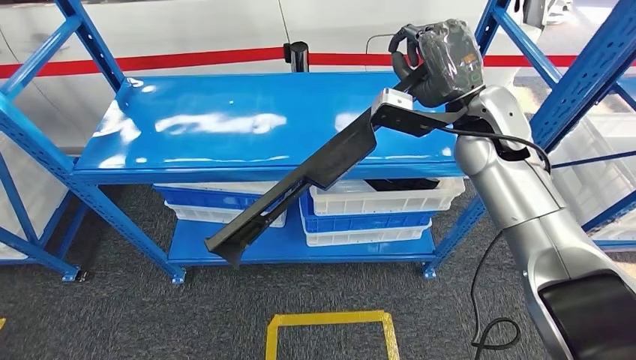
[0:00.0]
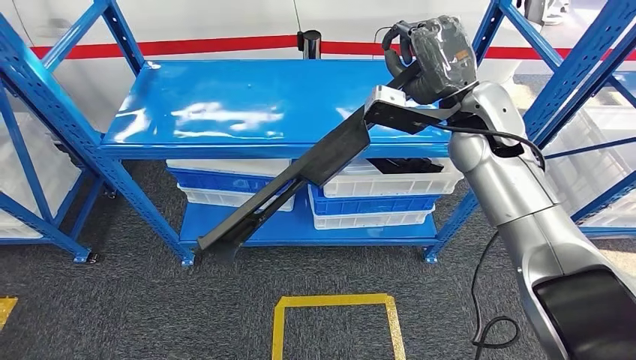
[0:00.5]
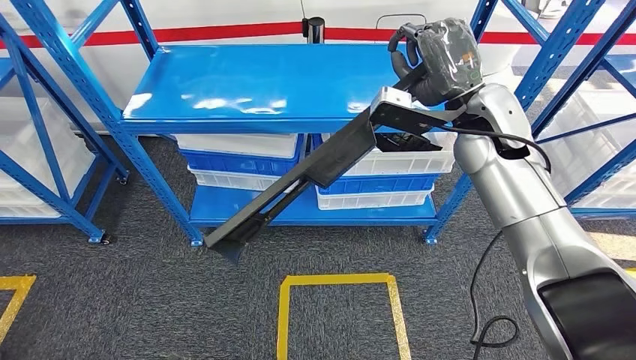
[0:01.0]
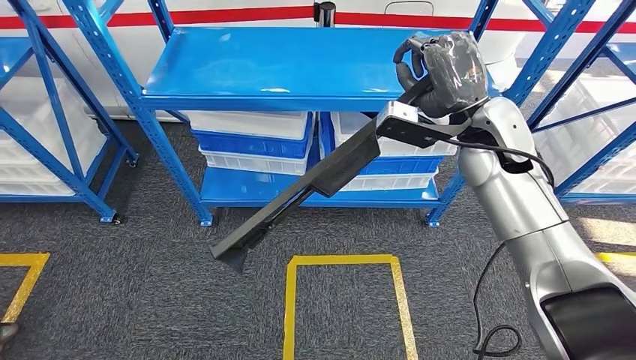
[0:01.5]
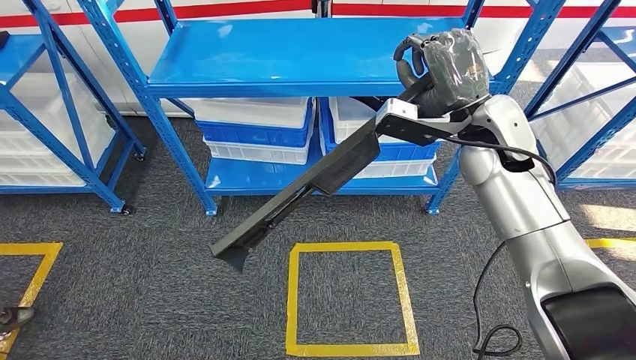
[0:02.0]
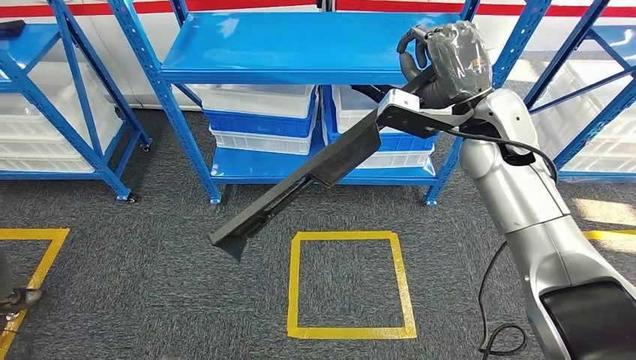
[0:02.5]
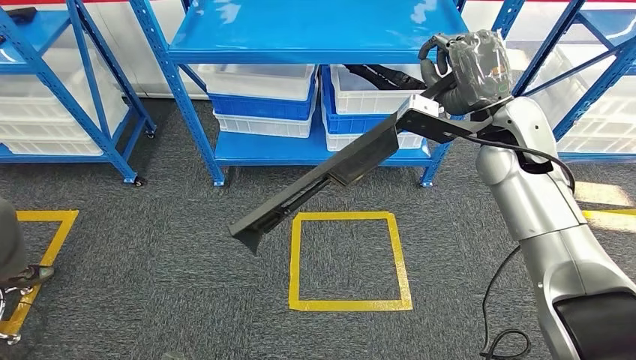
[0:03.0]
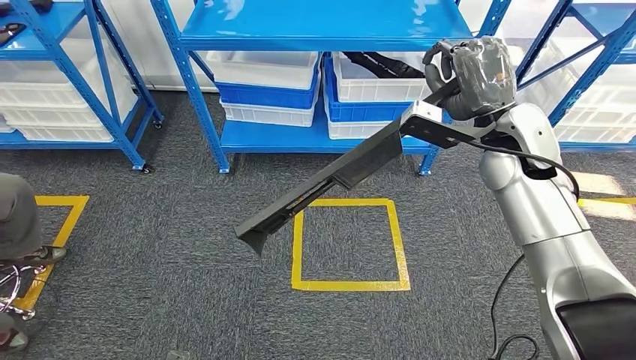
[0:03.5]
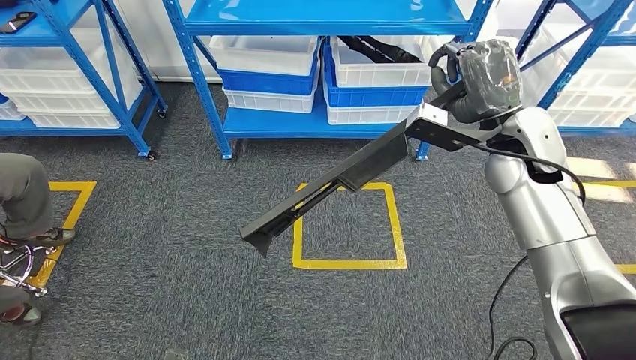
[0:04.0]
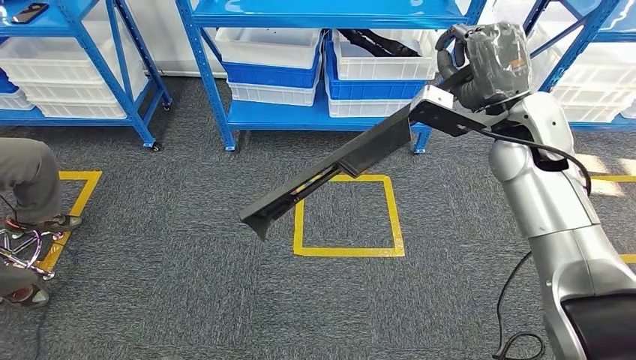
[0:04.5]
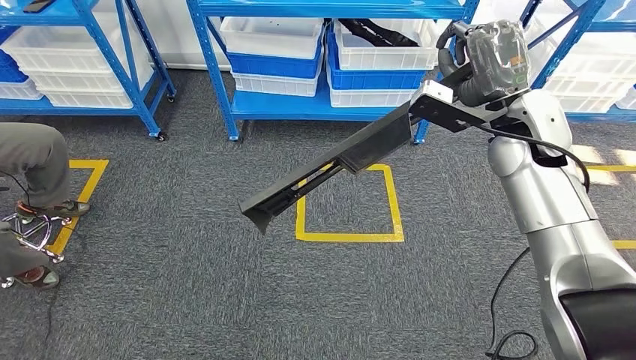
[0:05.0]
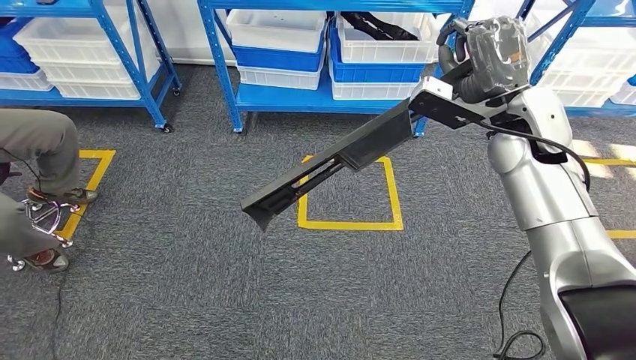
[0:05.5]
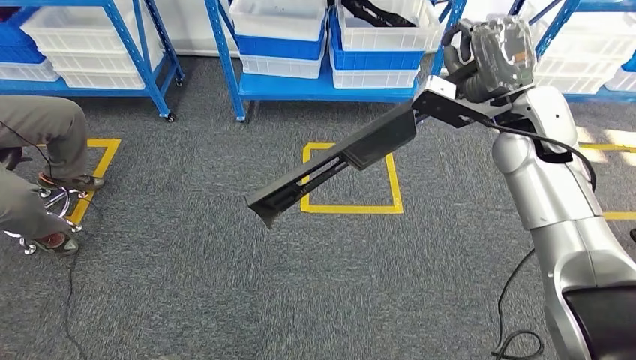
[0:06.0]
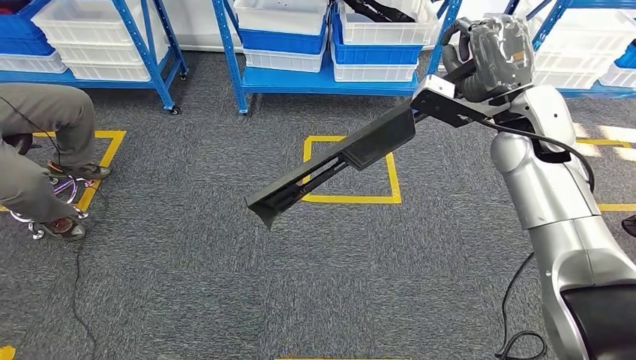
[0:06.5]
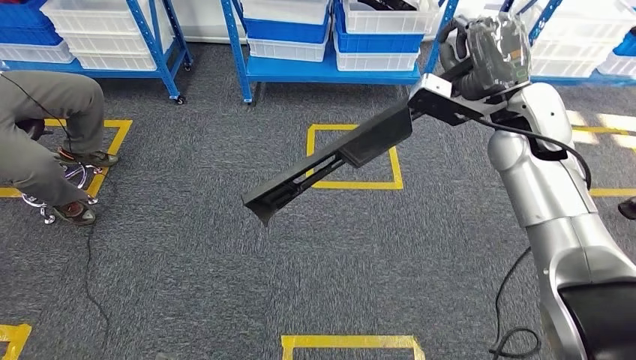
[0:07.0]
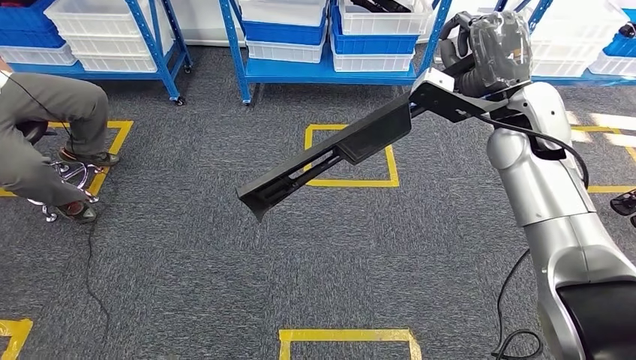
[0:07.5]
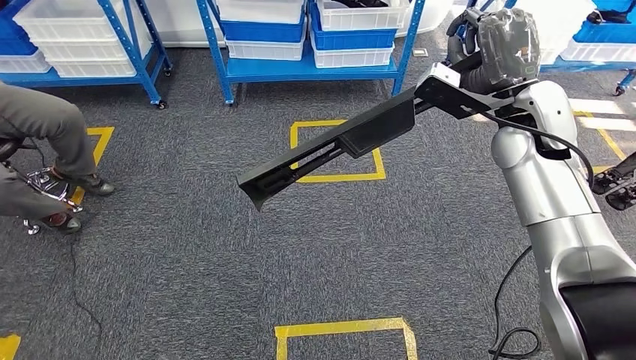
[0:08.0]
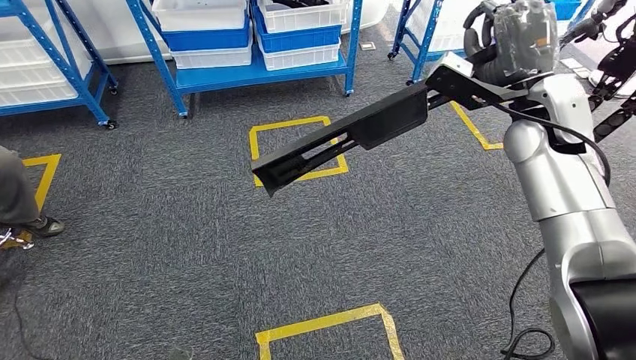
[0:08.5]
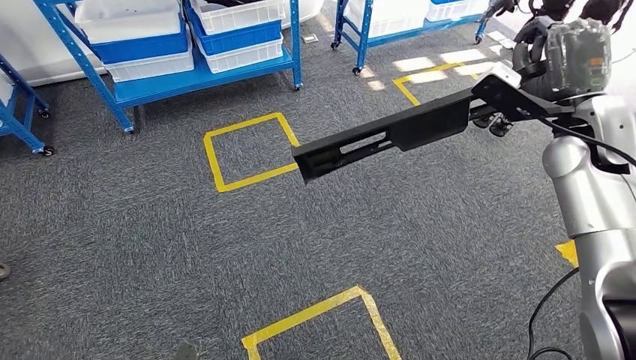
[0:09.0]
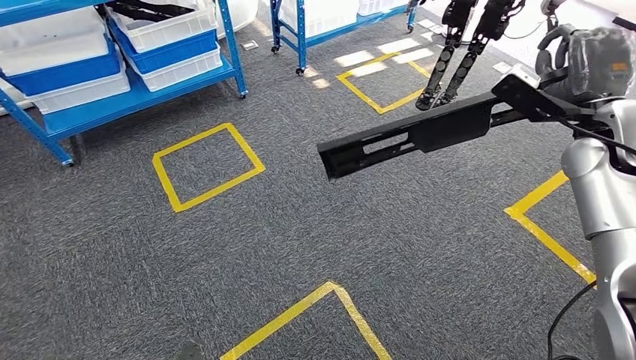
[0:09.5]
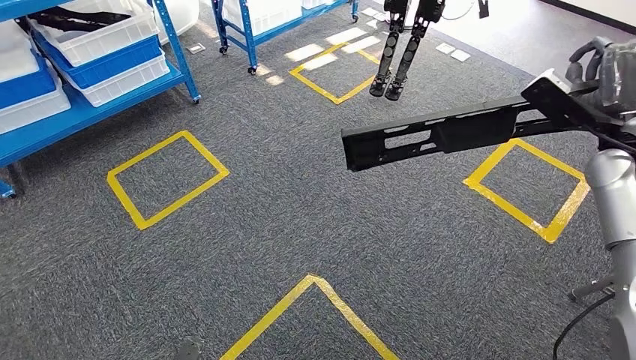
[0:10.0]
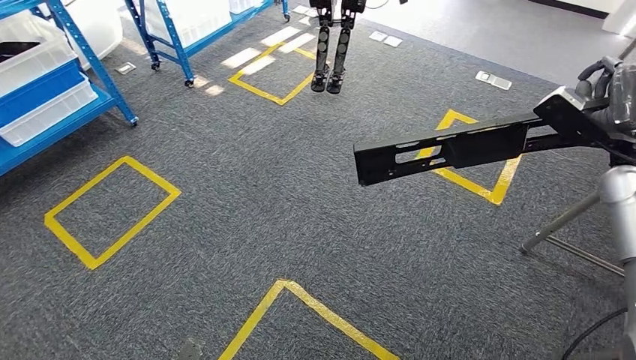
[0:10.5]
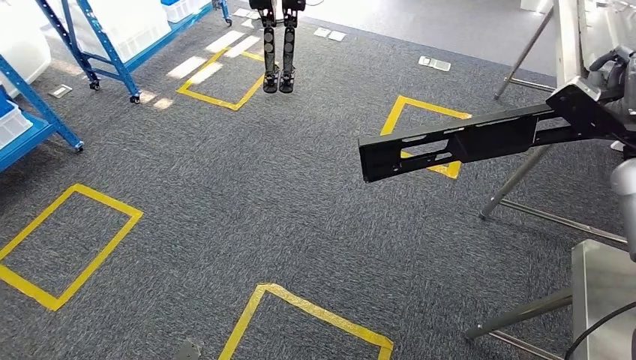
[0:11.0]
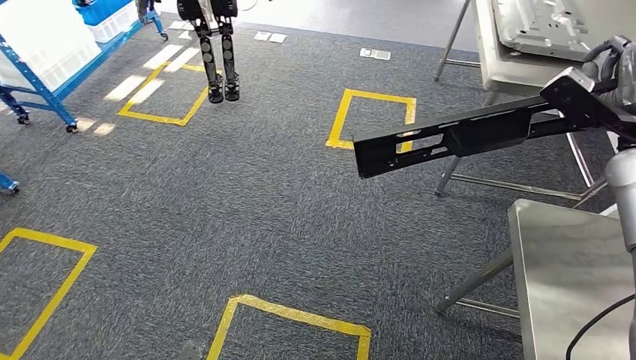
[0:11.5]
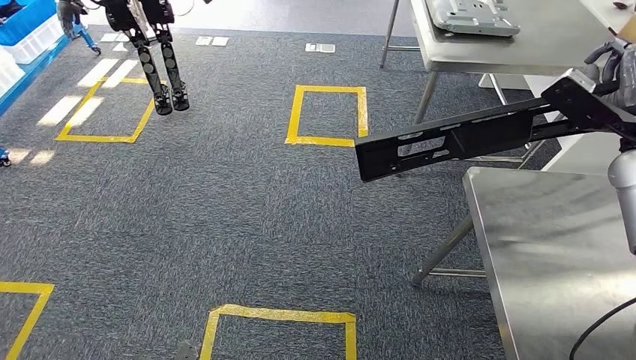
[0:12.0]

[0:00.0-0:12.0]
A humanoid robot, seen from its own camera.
Step, 0:00.0 to 0:11.5: Move the large material to the workbench.

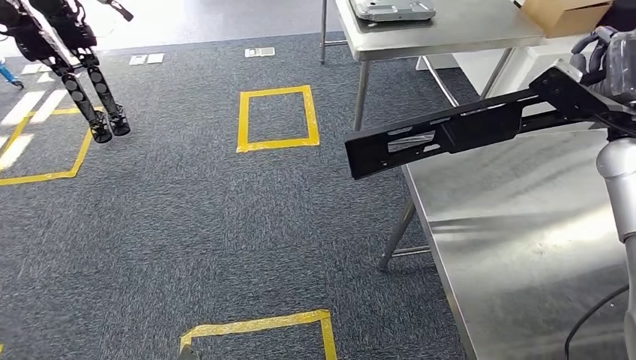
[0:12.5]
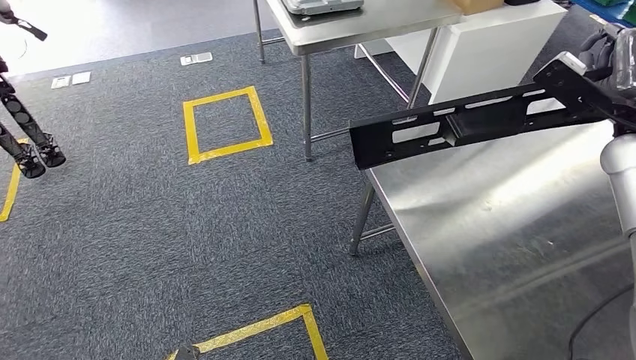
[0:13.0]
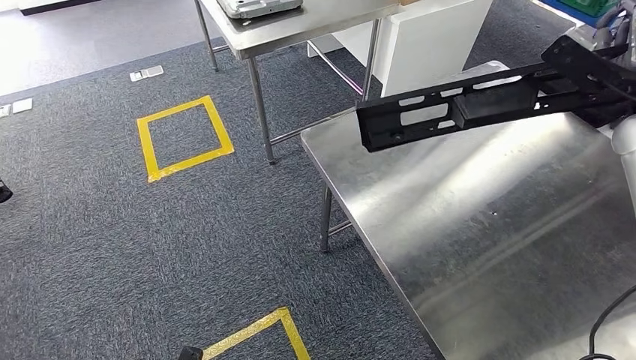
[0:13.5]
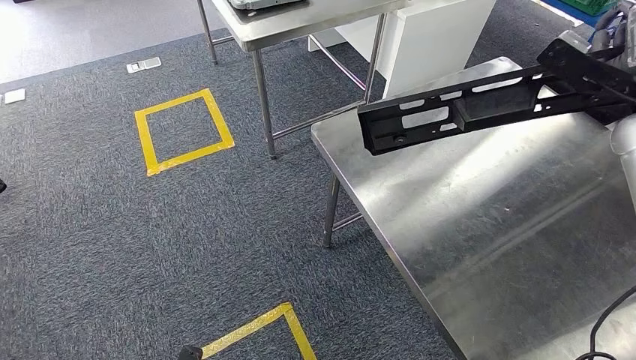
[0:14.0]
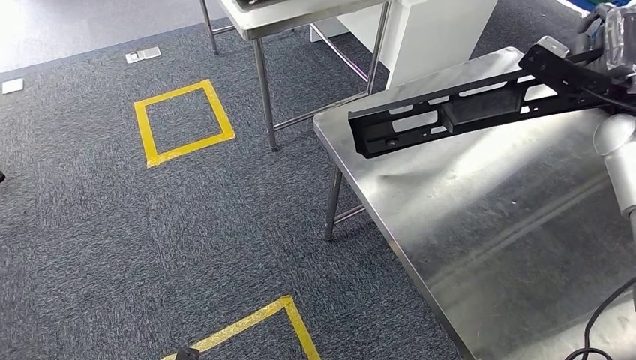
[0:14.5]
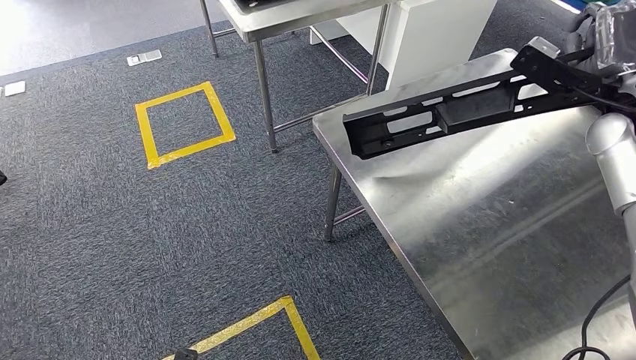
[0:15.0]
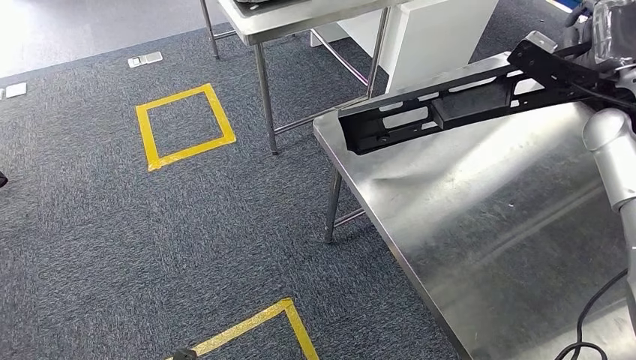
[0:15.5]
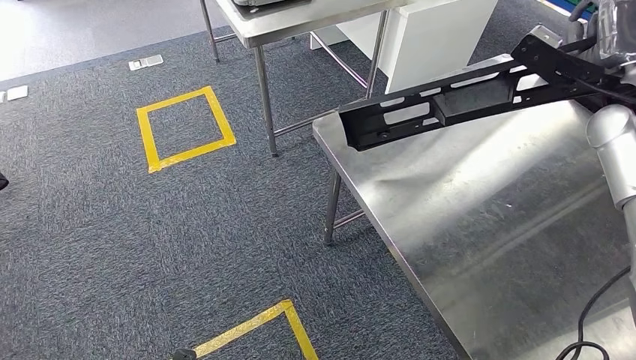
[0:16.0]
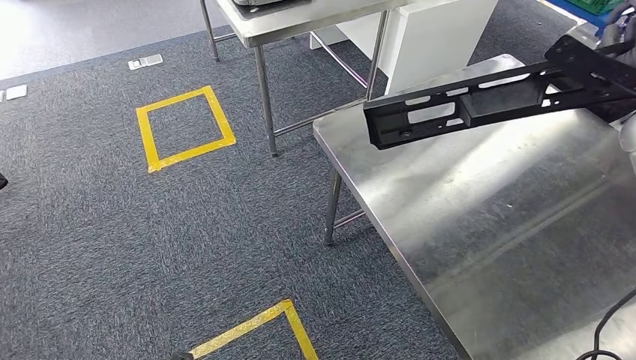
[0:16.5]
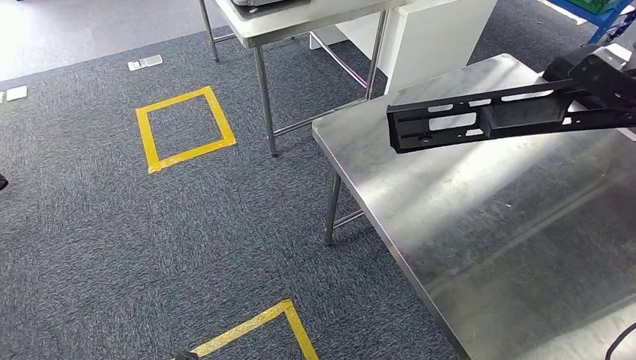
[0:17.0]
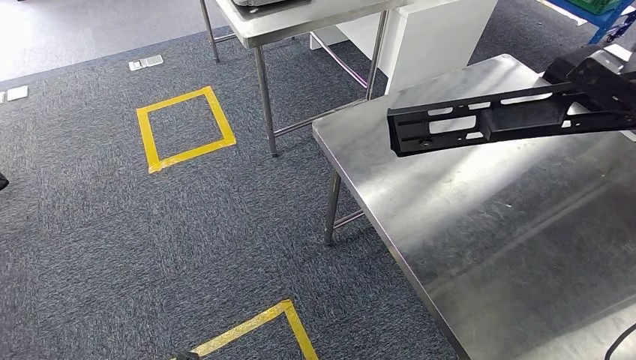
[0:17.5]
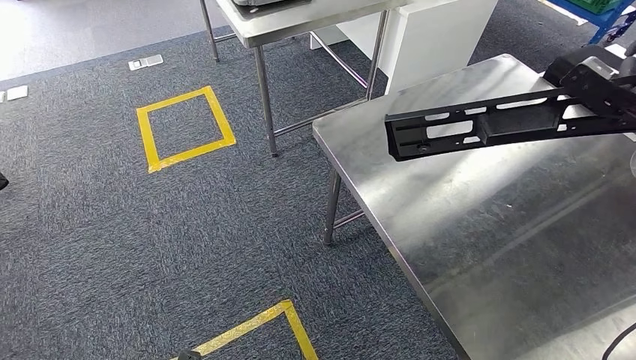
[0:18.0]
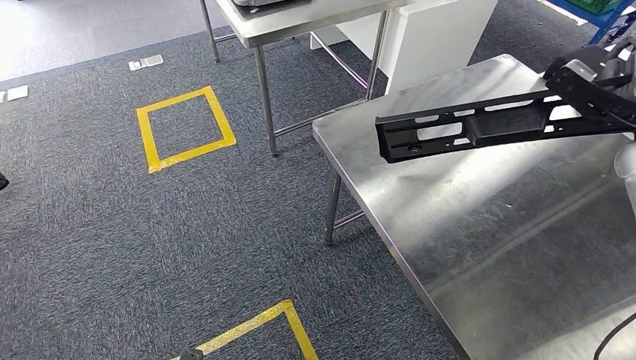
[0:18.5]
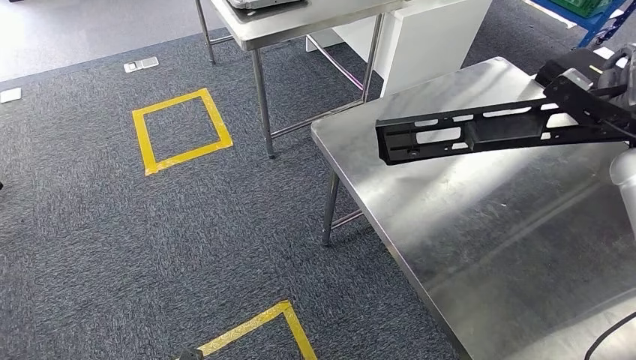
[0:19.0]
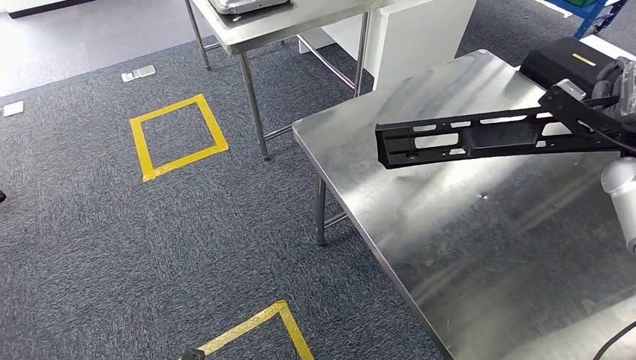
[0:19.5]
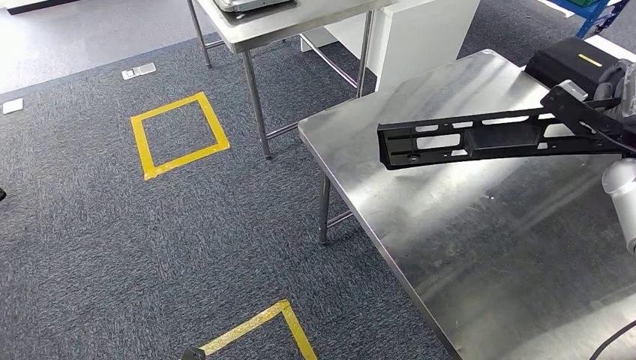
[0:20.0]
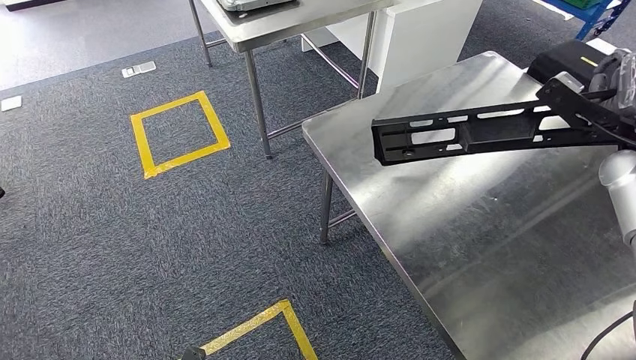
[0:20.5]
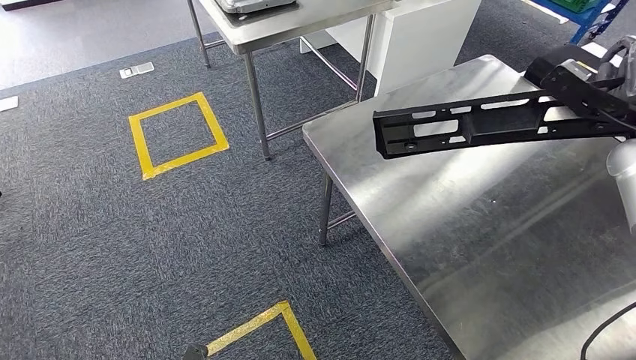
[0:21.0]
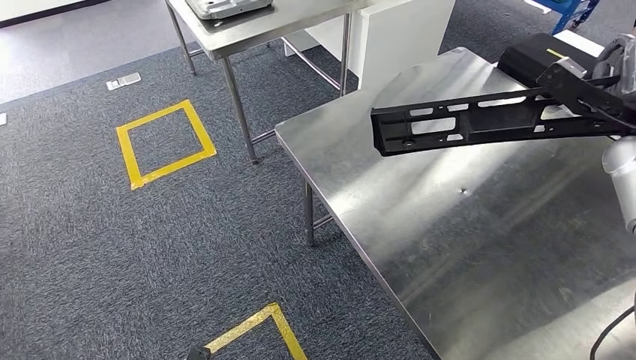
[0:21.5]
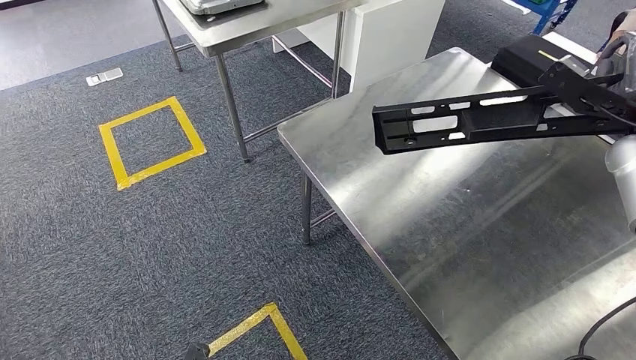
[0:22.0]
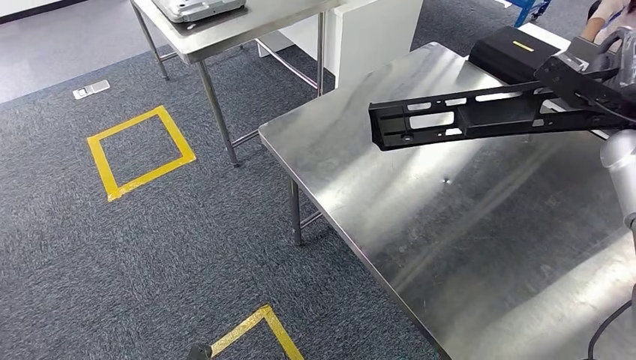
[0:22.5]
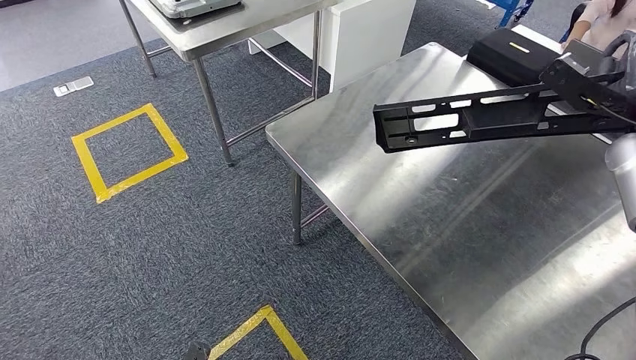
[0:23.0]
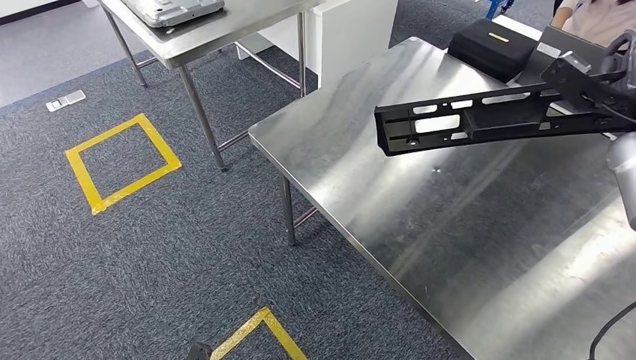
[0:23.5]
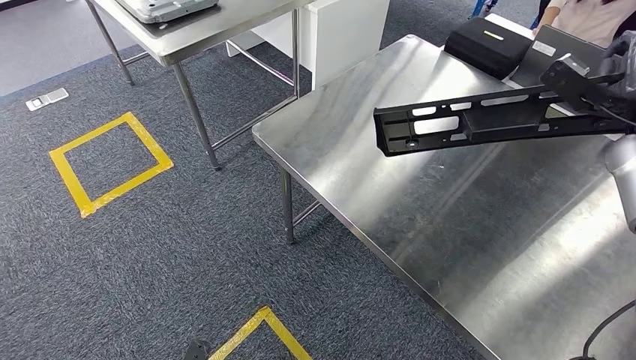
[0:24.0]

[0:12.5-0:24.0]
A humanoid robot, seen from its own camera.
0:14.5 to 0:16.5: The hands stay close to where they were, moving slightly.
0:16.5 to 0:18.5: The hands move only a little.
